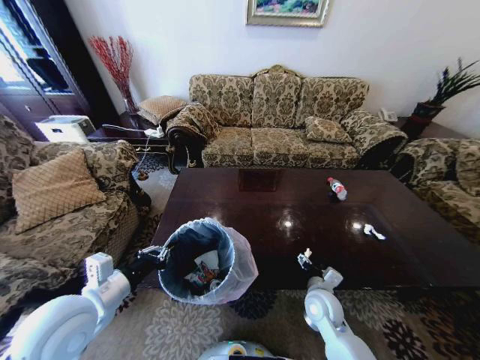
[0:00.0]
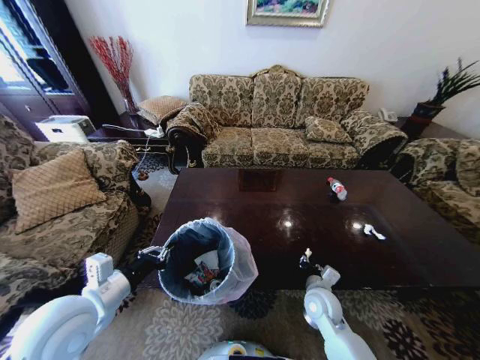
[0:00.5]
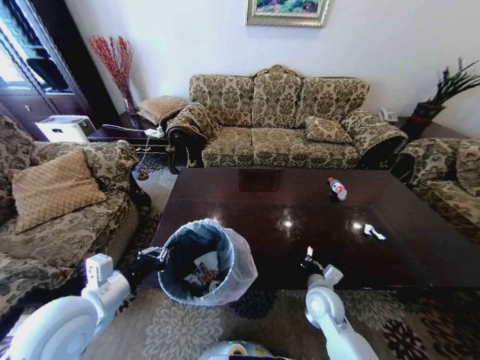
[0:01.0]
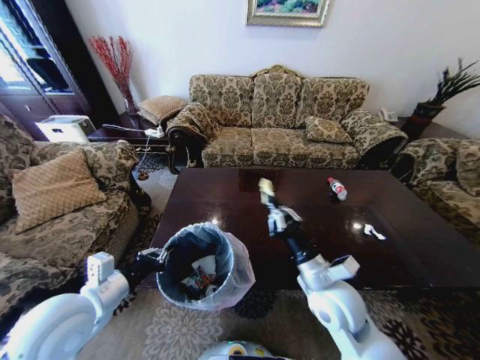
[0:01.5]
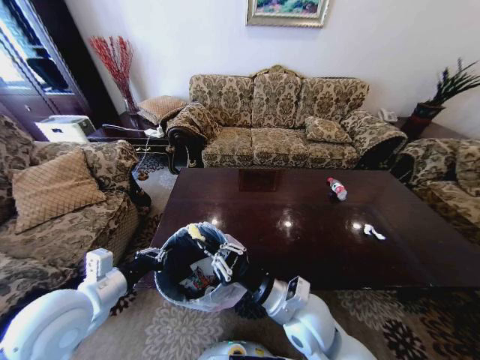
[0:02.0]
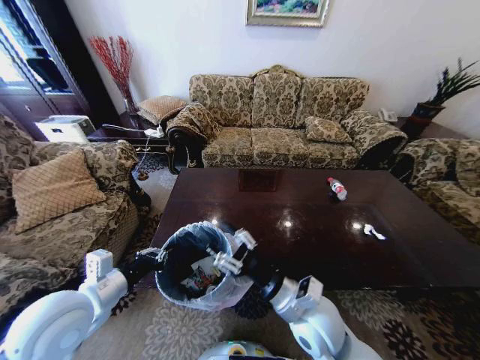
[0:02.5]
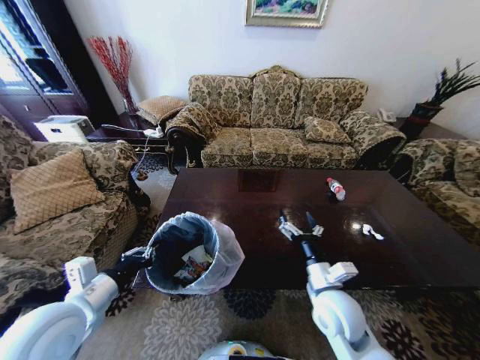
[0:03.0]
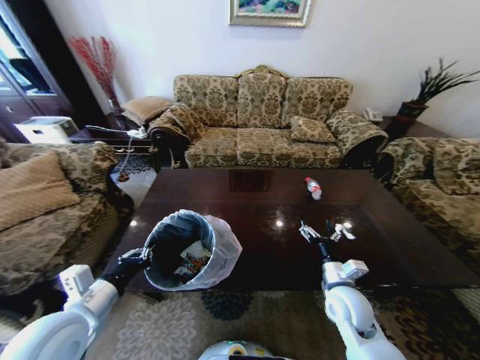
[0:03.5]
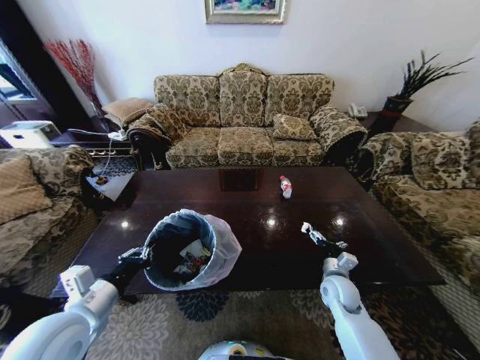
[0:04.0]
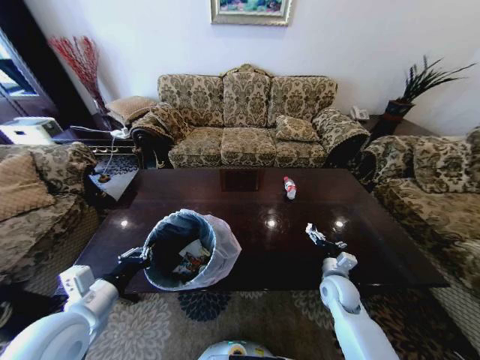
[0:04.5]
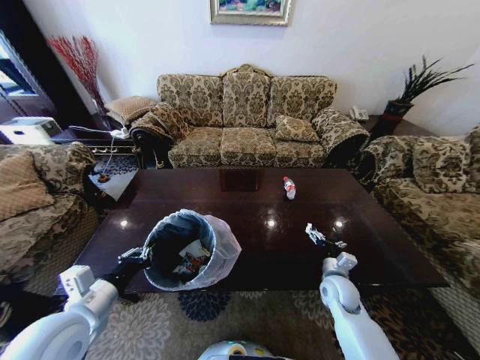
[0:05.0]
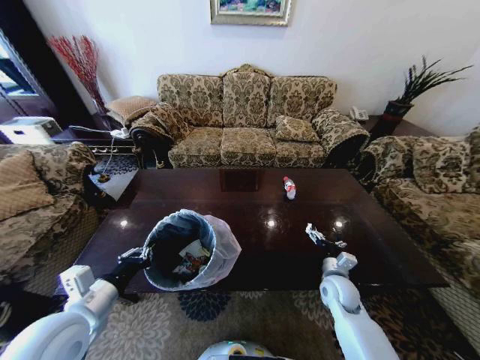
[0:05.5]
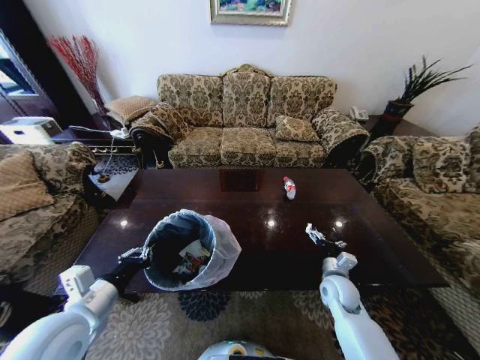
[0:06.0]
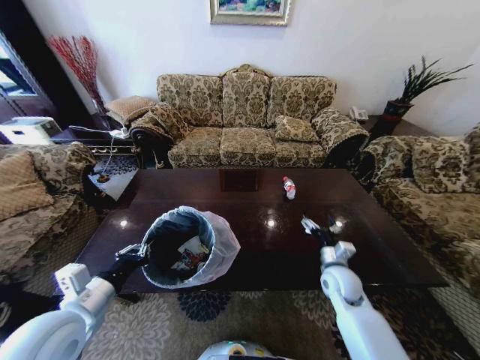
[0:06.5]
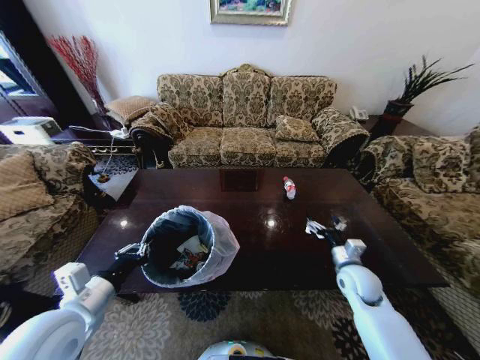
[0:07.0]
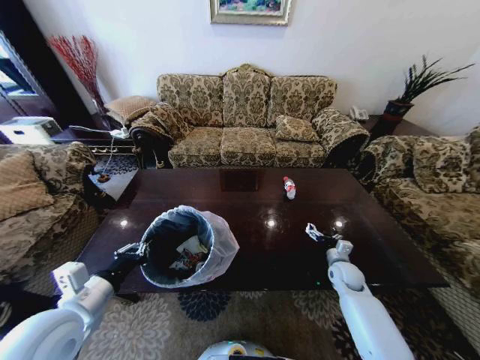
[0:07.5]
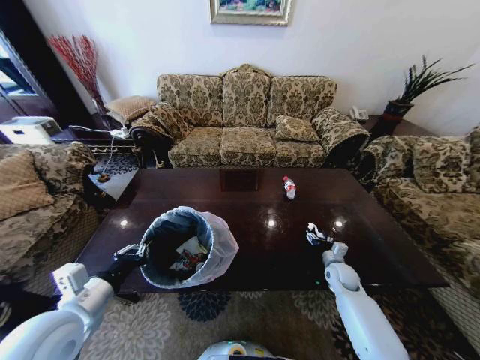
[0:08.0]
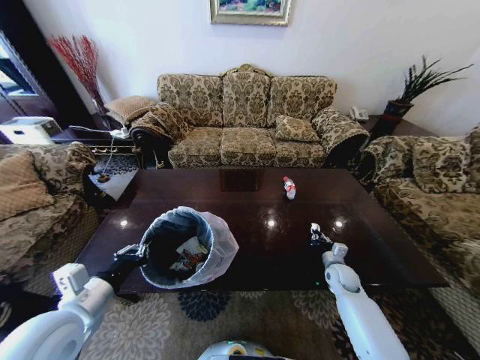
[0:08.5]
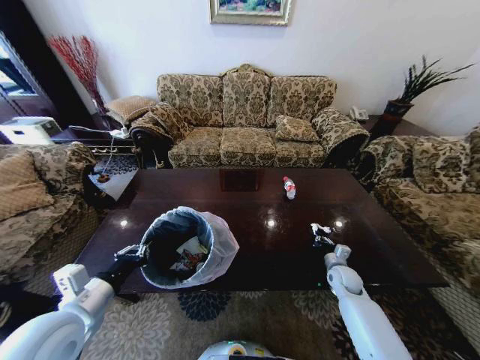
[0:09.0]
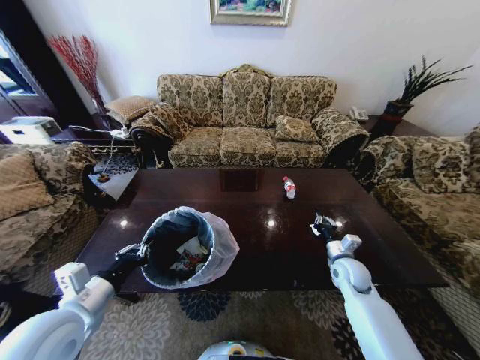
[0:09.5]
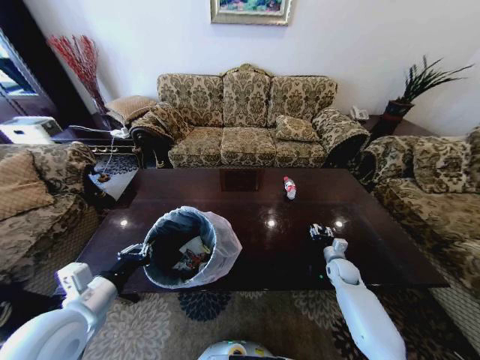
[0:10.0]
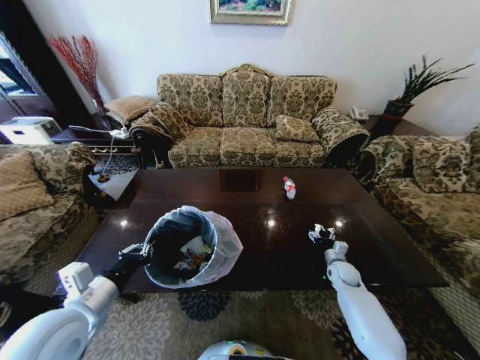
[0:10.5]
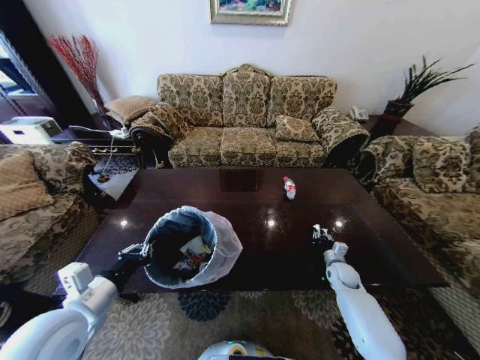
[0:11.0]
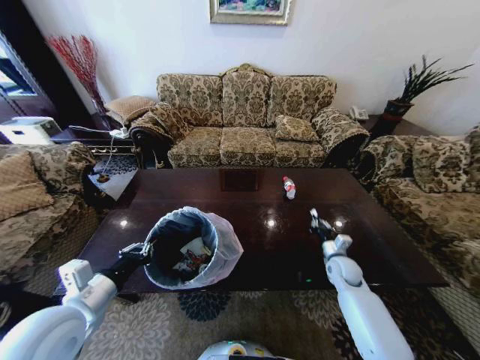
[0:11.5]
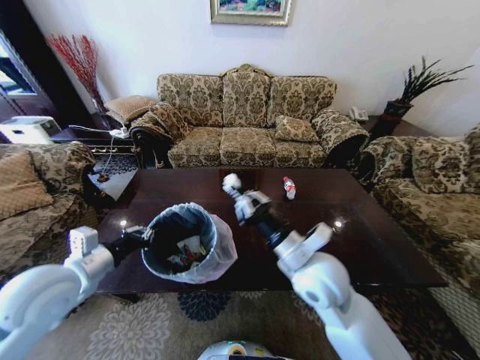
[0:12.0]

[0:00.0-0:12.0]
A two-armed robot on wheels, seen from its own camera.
Task of the whole recording: Move to the front of the table and place the trash on the table into the trash bin.
0:00.0 to 0:02.0: The right gripper heads upward, to the left and backward, covering some 15 cm, and closes up.
0:02.0 to 0:04.0: The right gripper is displaced to the right, downward and forward by approximately 25 cm, and opens.
0:04.0 to 0:06.0: Both grippers stay put.
0:06.0 to 0:08.0: The right gripper goes roughly 10 cm forward, to the right and downward.
0:08.0 to 0:10.0: The right gripper goes upward and returns, about 10 cm each way, and closes, then reopens.
0:10.0 to 0:12.0: The left gripper travels forward by approximately 5 cm. Meanwhile the right gripper travels upward, to the left and backward by some 40 cm, and closes up.

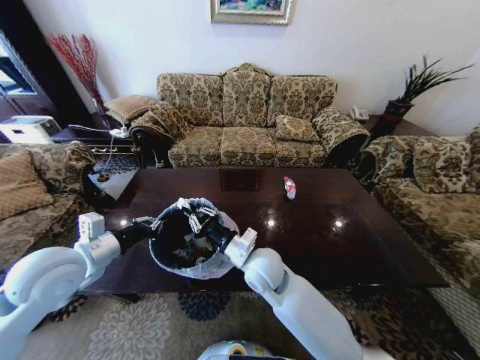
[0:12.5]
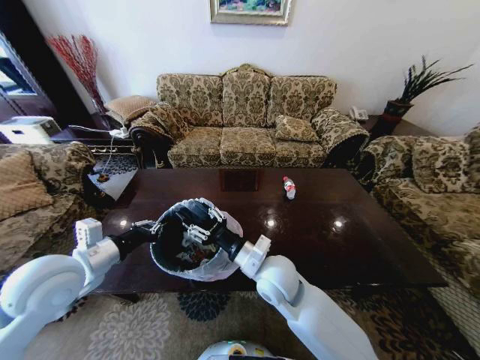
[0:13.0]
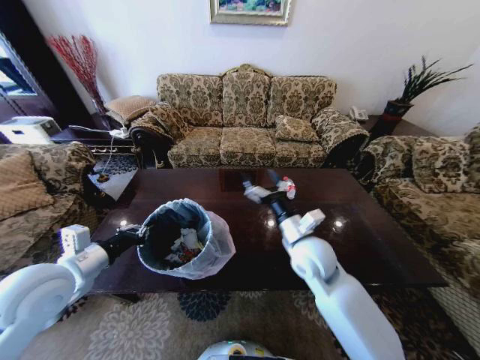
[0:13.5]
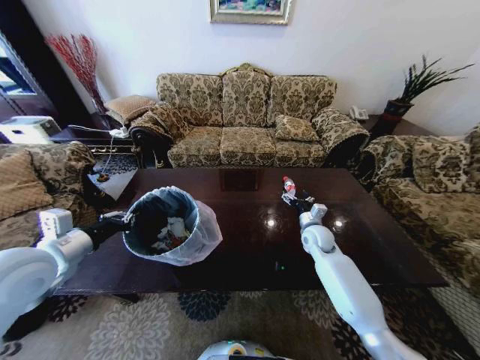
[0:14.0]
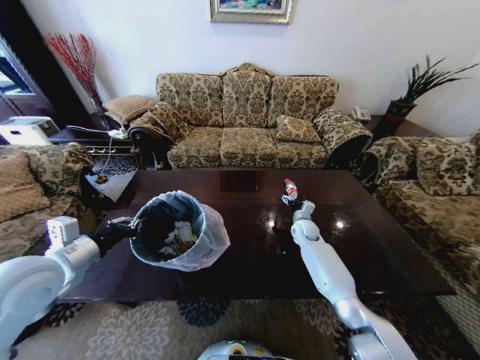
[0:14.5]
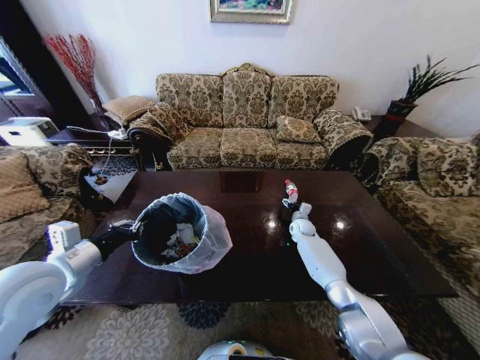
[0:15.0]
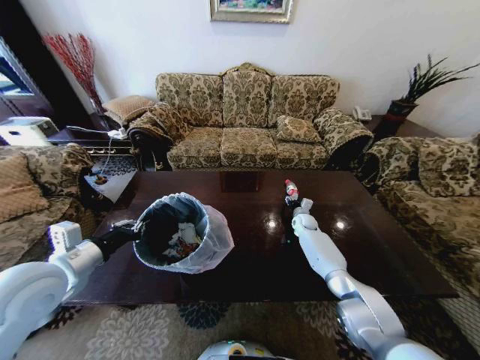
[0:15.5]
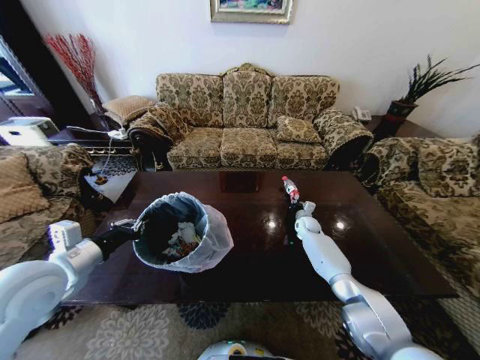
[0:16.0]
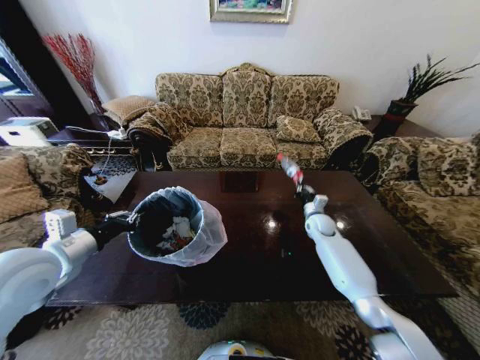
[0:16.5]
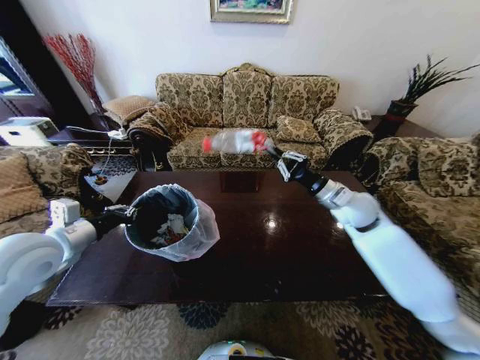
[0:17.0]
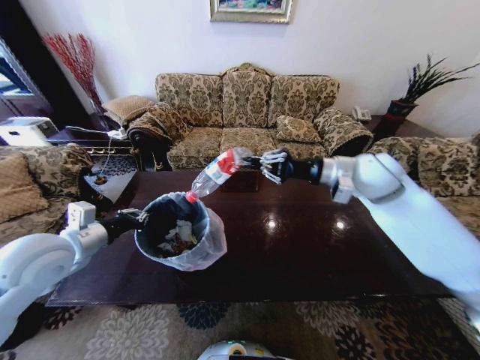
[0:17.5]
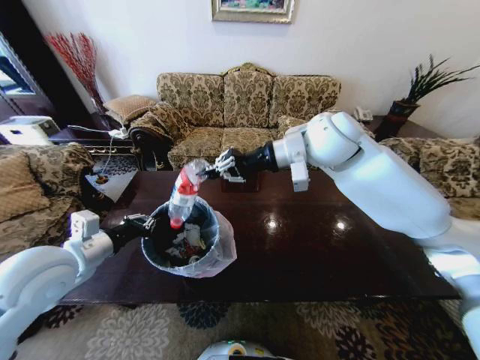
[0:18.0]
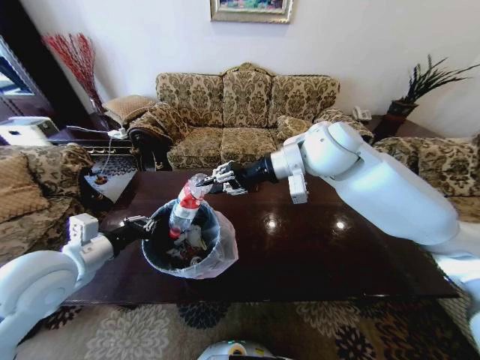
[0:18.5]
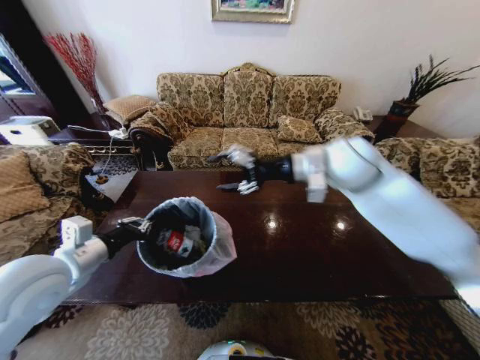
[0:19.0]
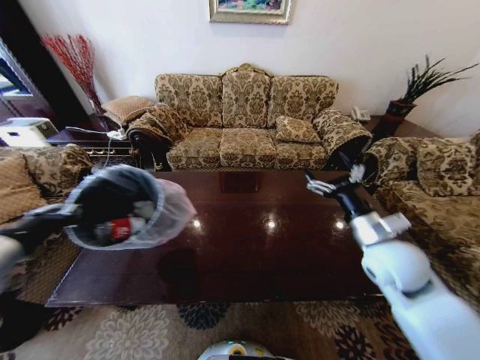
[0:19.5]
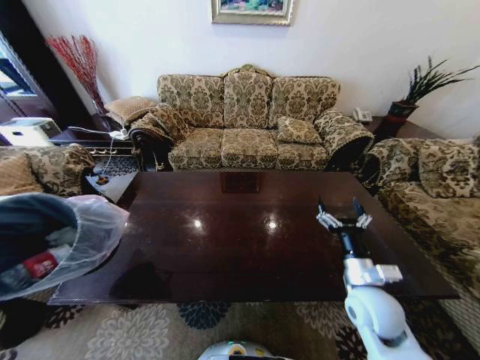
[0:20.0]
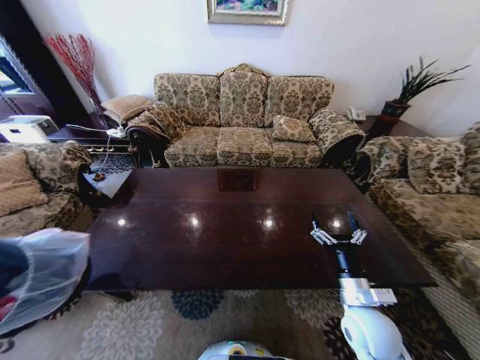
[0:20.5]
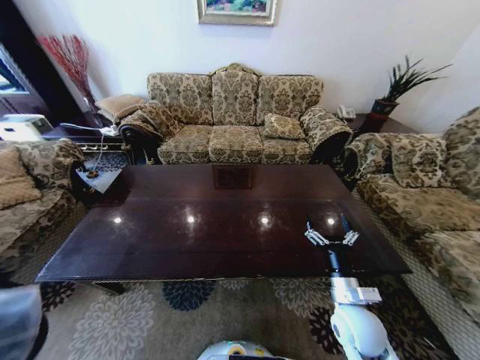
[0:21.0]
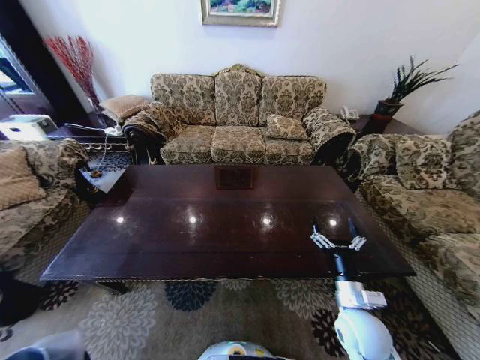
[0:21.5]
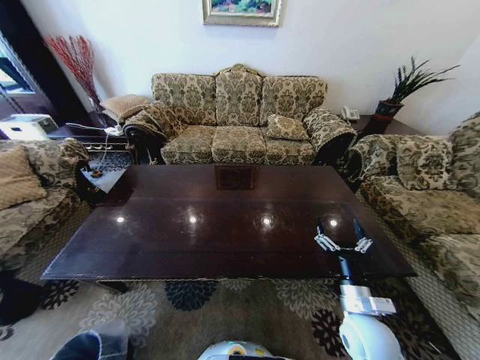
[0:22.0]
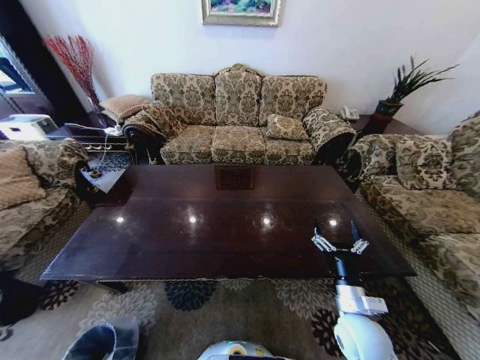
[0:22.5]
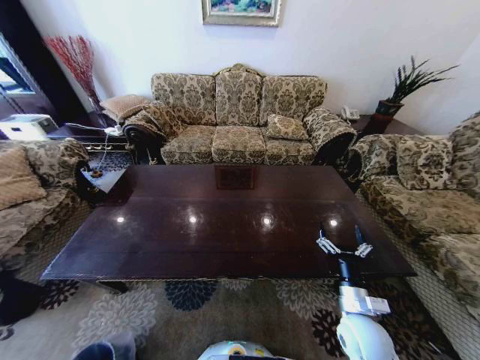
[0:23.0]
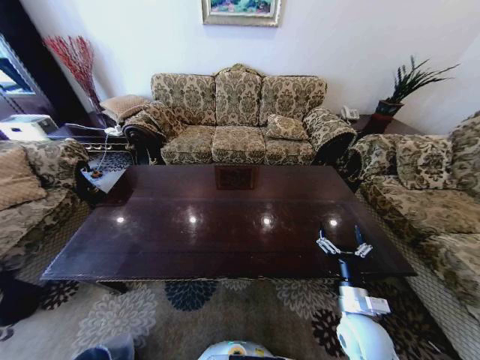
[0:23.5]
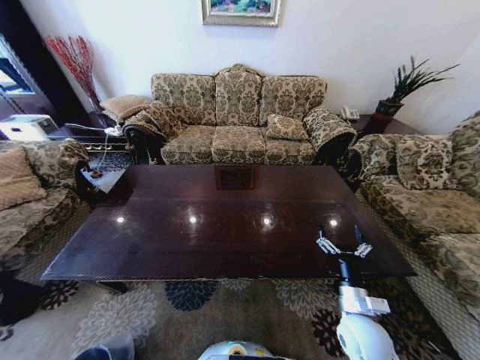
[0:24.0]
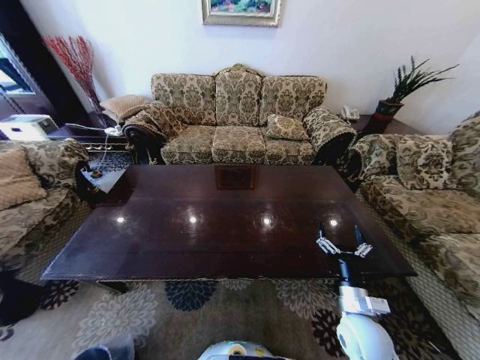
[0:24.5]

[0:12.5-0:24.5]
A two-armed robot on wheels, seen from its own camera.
Task of the whole recording: Move to the front of the table and place the trash on the table into the trash bin.
0:12.5 to 0:14.5: The right gripper shifts some 35 cm forward, to the right and downward, and opens its fingers.
0:14.5 to 0:16.5: The right gripper shifts roughly 5 cm to the right, and closes its fingers.
0:16.5 to 0:18.5: The right gripper heads upward and to the left, covering about 40 cm.
0:18.5 to 0:20.5: The right gripper shifts roughly 40 cm downward and backward, and opens. Meanwhile the left gripper goes roughly 30 cm backward and to the left.
0:20.5 to 0:22.5: The left gripper heads downward, covering roughly 40 cm.
0:22.5 to 0:24.5: The left gripper opens.

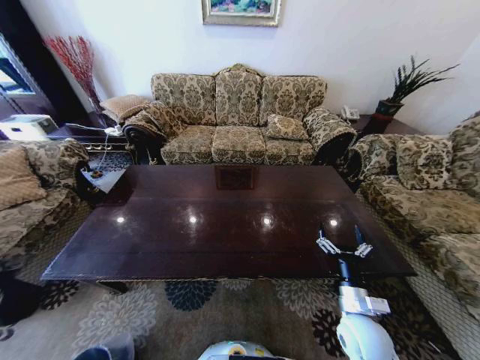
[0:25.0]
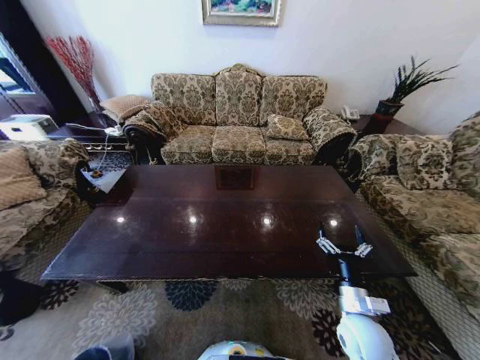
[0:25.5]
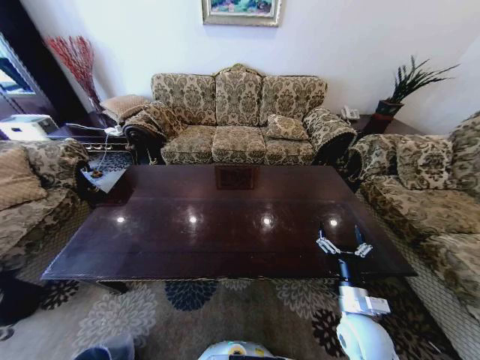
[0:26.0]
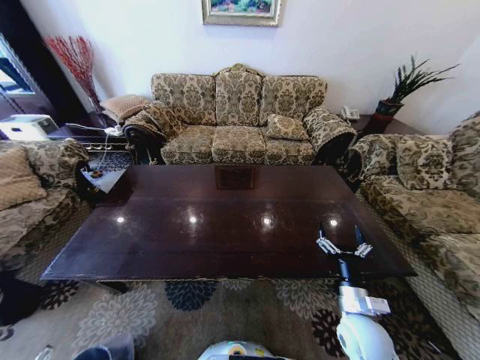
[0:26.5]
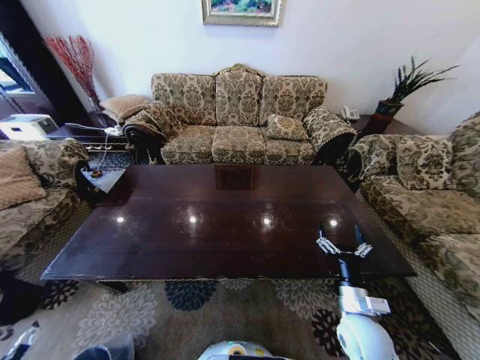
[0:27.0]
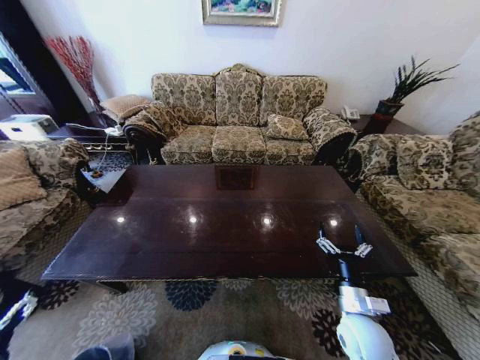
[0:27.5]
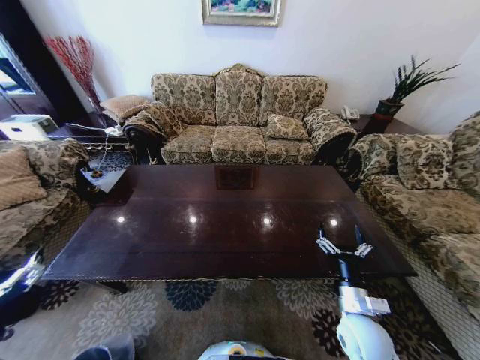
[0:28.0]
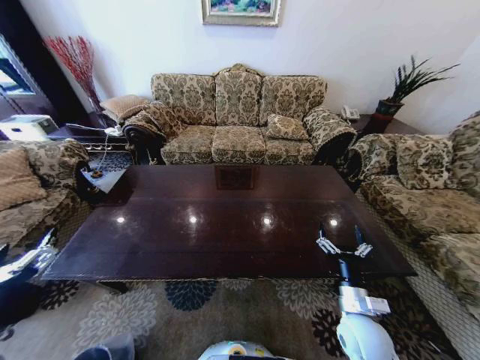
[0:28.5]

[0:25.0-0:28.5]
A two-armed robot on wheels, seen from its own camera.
Task of the whole recording: Move to the front of the table and place the trash on the table into the trash bin.
0:27.0 to 0:28.5: The left gripper goes approximately 30 cm upward and to the right.
